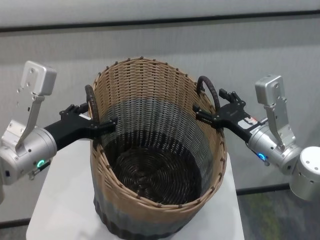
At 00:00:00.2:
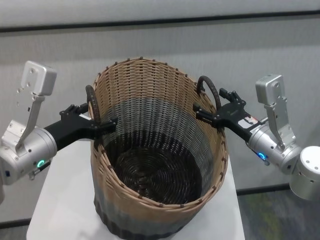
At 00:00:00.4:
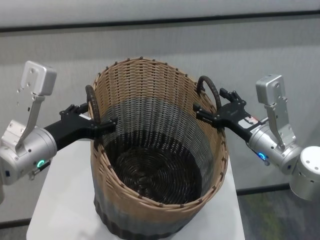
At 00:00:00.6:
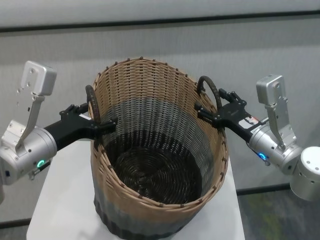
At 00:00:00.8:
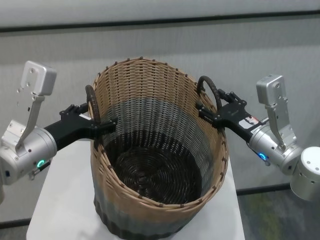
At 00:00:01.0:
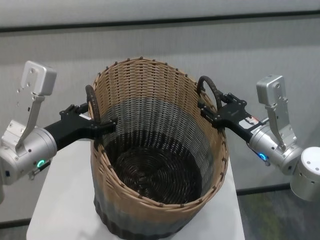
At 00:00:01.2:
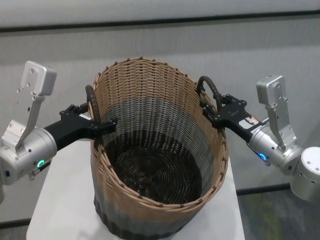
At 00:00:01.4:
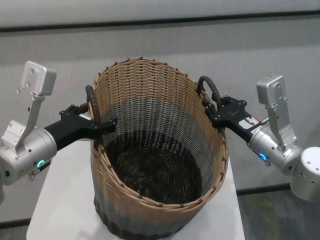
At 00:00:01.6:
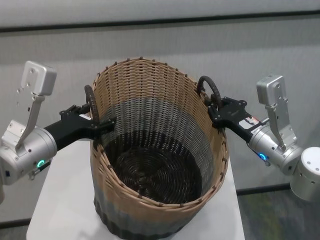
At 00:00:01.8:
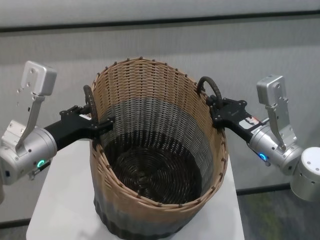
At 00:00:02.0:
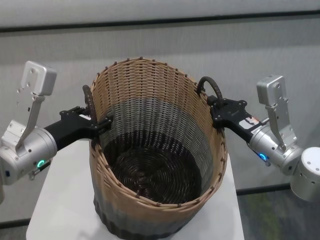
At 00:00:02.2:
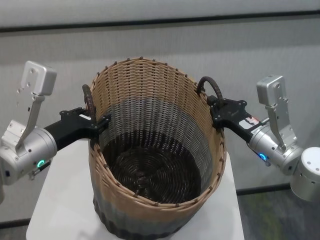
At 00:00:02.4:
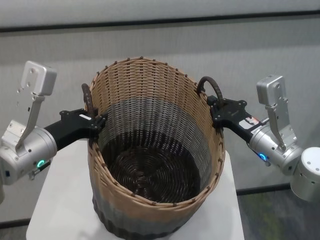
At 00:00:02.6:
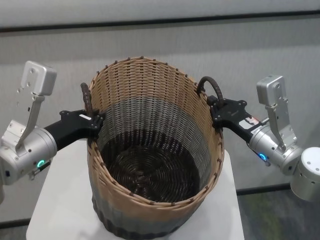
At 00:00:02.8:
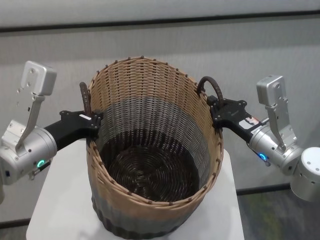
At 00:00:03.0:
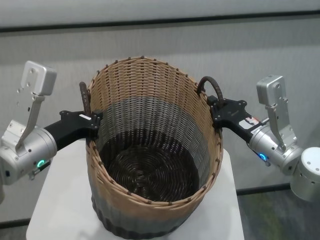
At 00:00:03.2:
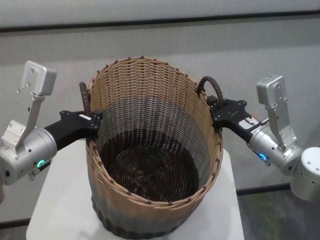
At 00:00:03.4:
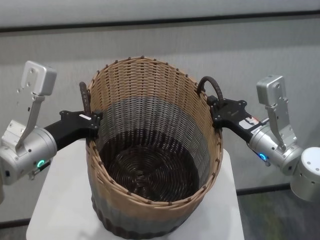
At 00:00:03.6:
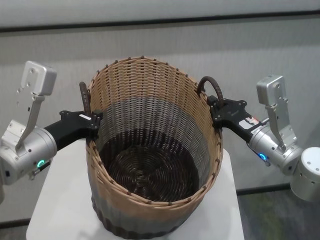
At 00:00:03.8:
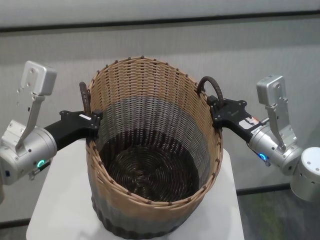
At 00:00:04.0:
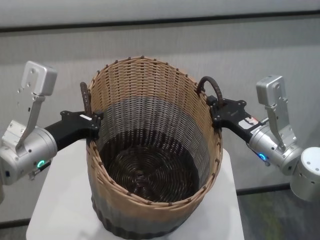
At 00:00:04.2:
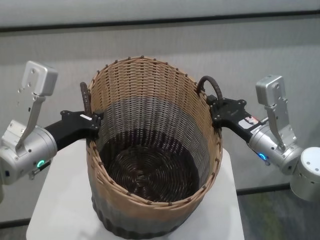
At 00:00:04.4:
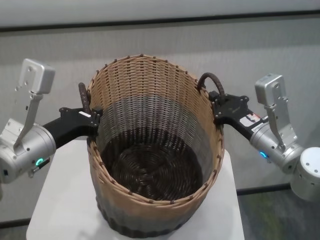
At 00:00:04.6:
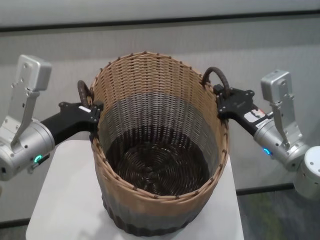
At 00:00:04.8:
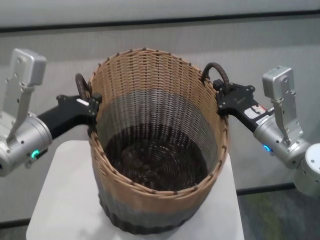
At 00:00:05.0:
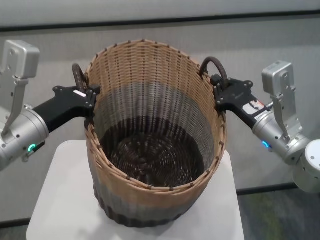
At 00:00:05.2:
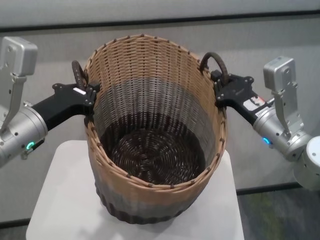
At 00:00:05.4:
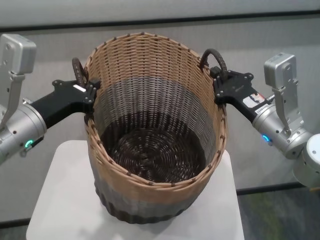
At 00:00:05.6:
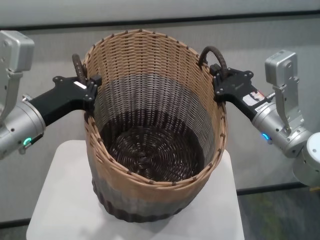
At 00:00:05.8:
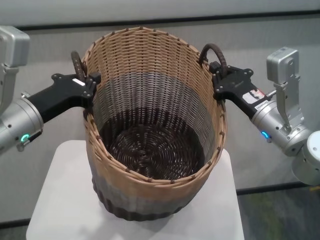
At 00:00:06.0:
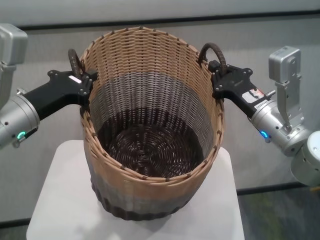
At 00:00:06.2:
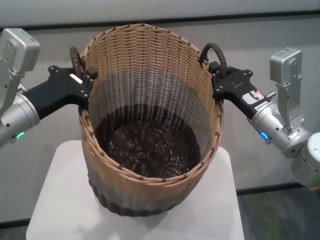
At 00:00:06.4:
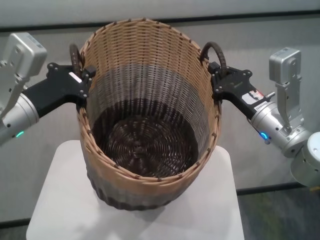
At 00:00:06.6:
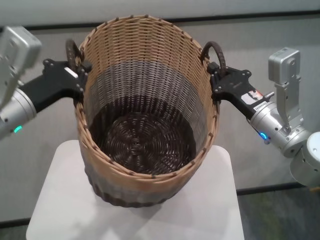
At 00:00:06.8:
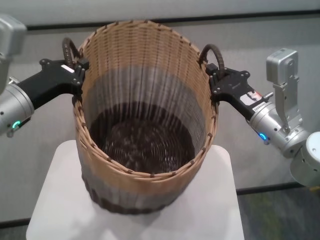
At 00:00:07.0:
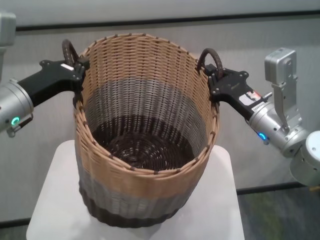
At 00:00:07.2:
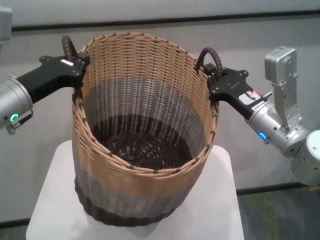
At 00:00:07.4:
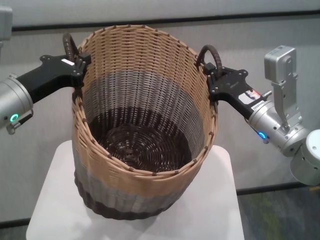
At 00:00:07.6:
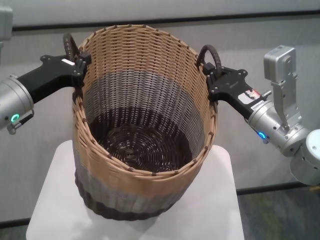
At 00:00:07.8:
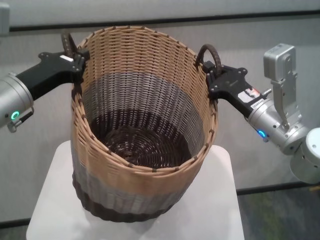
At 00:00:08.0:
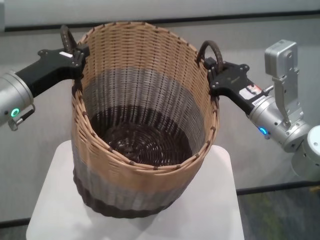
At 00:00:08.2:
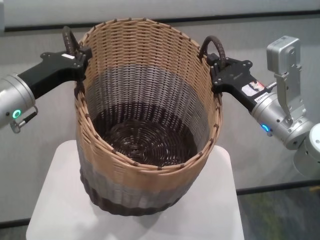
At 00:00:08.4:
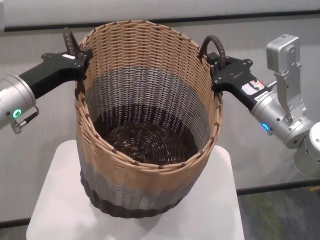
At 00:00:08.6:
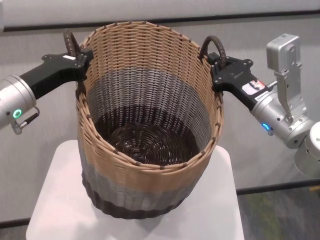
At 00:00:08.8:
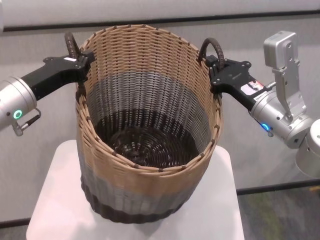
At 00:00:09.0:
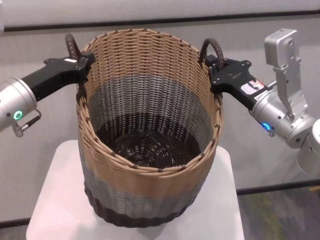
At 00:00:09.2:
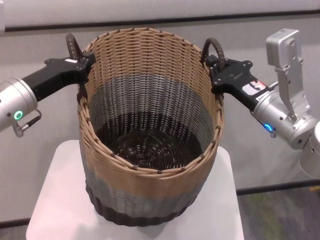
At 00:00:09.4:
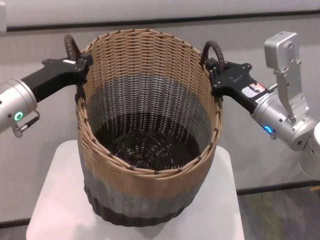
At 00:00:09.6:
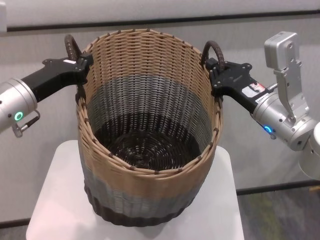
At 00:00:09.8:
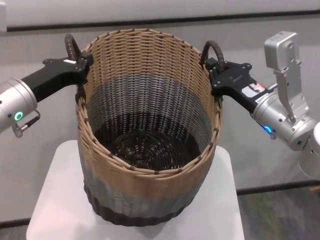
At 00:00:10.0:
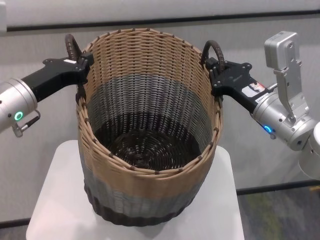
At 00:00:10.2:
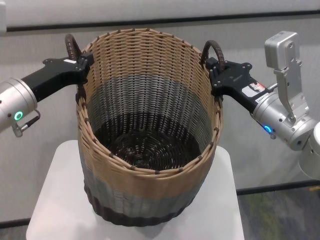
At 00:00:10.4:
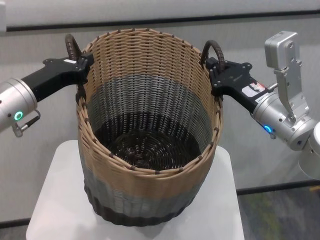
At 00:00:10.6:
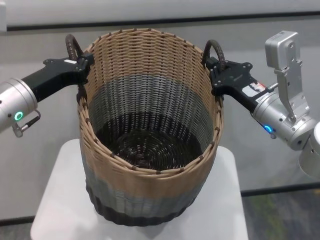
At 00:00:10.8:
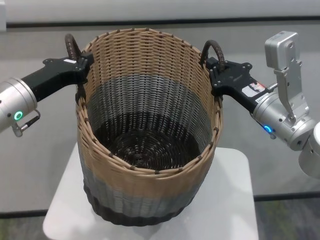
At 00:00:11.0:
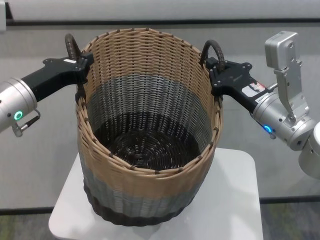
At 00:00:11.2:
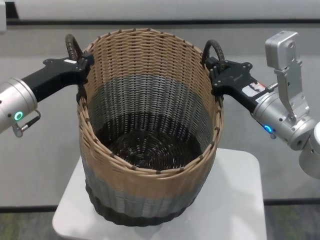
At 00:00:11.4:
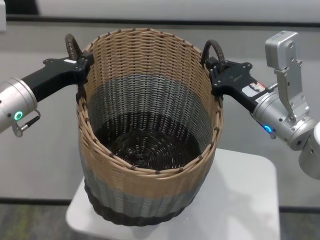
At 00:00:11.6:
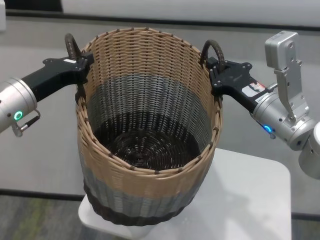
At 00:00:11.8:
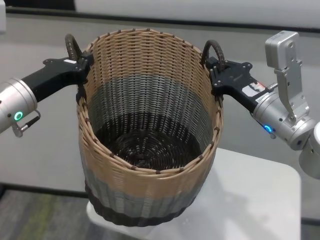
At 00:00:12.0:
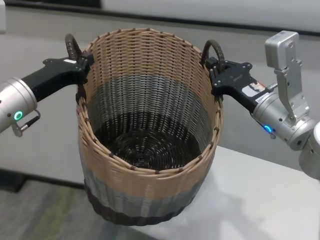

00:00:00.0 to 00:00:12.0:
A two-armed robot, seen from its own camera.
Task of the whole recording: carry the clothes basket in coordination with both hands.
Step, 00:00:00.0 to 00:00:04.0: Grasp the basket with both grippers.

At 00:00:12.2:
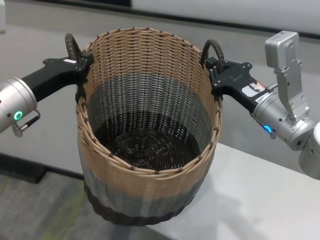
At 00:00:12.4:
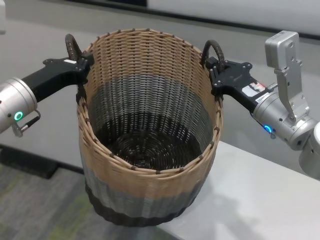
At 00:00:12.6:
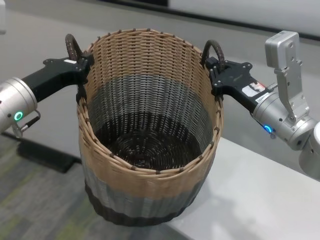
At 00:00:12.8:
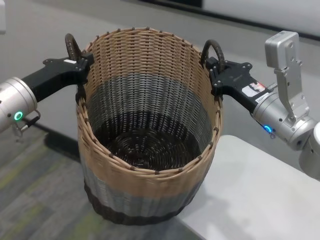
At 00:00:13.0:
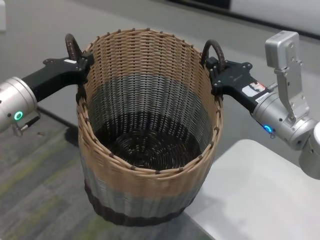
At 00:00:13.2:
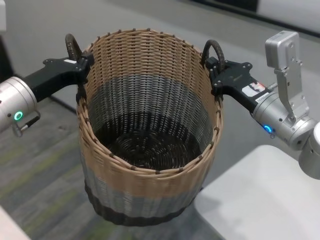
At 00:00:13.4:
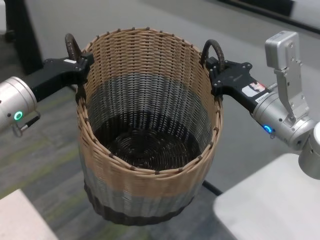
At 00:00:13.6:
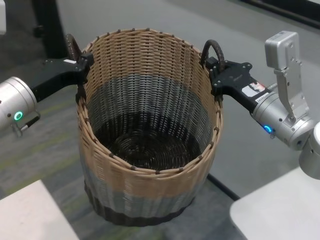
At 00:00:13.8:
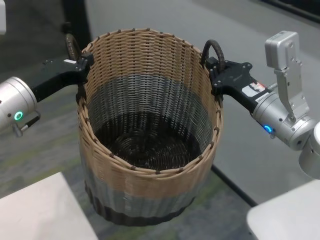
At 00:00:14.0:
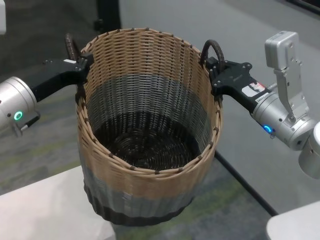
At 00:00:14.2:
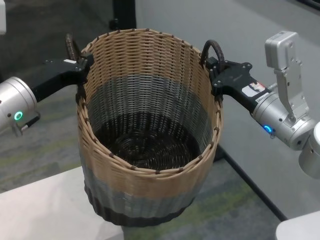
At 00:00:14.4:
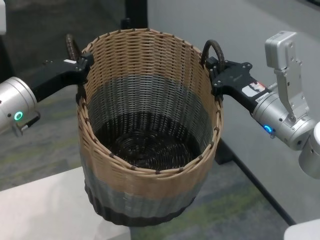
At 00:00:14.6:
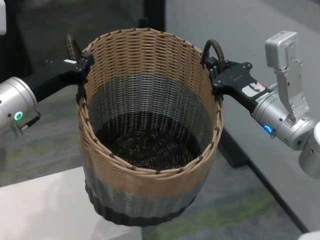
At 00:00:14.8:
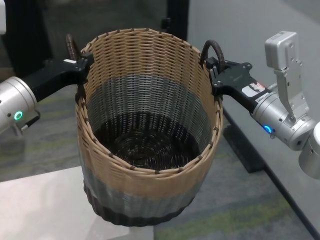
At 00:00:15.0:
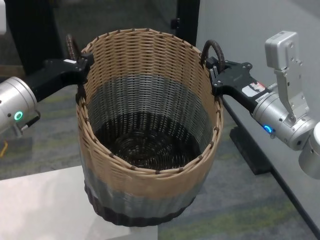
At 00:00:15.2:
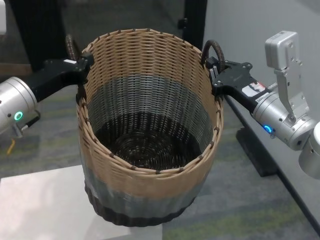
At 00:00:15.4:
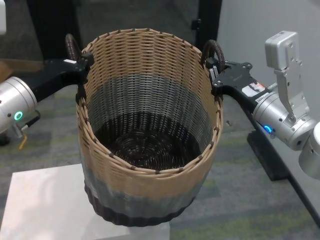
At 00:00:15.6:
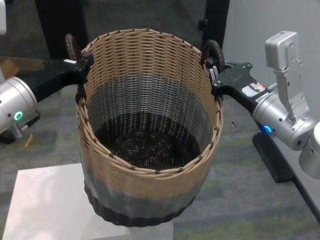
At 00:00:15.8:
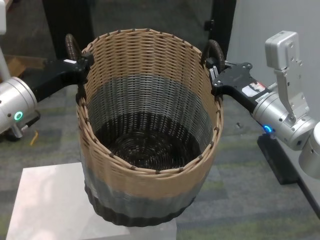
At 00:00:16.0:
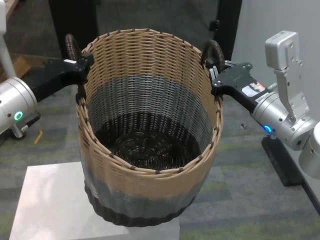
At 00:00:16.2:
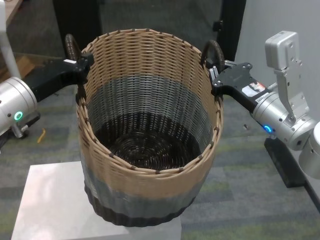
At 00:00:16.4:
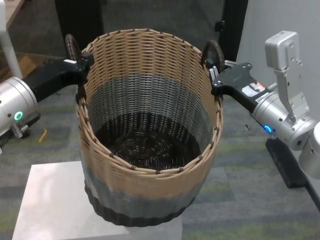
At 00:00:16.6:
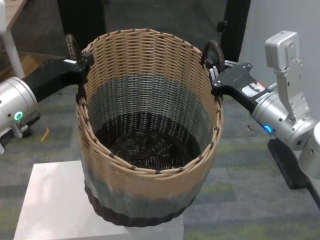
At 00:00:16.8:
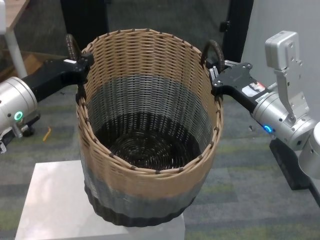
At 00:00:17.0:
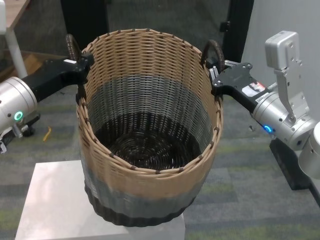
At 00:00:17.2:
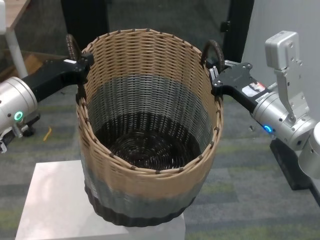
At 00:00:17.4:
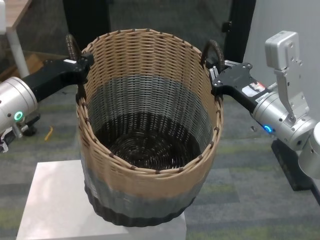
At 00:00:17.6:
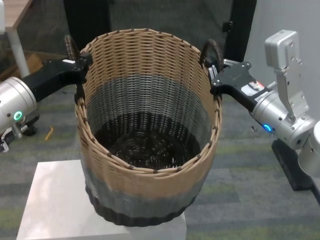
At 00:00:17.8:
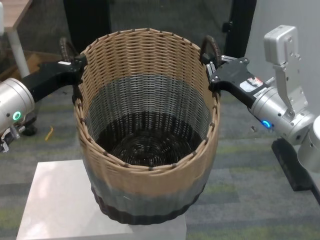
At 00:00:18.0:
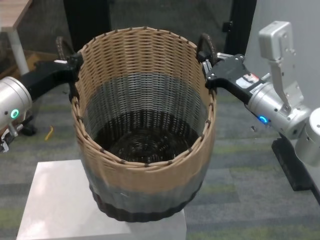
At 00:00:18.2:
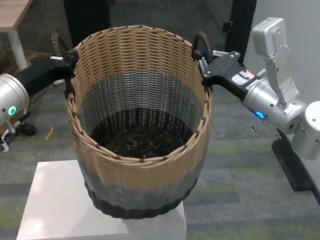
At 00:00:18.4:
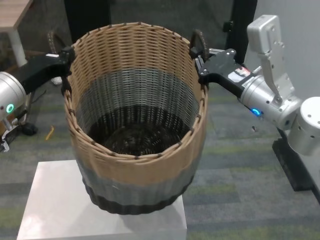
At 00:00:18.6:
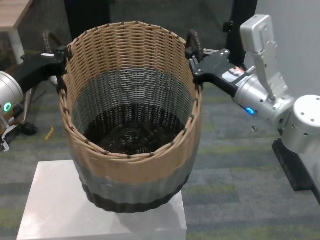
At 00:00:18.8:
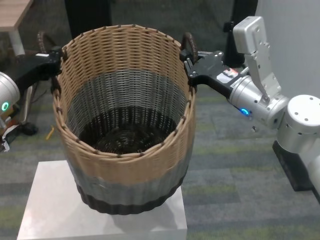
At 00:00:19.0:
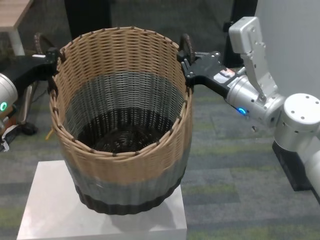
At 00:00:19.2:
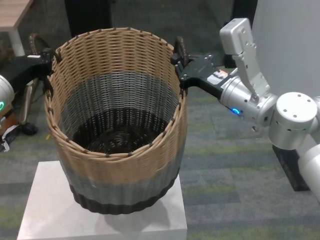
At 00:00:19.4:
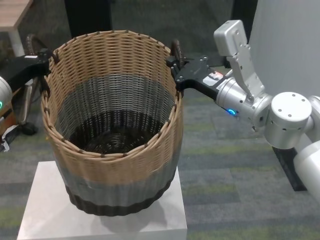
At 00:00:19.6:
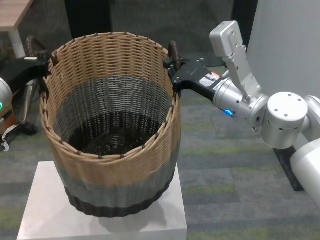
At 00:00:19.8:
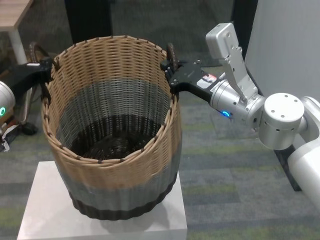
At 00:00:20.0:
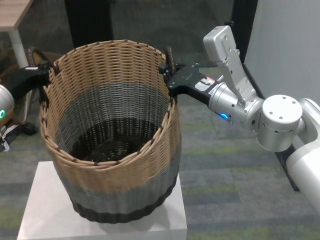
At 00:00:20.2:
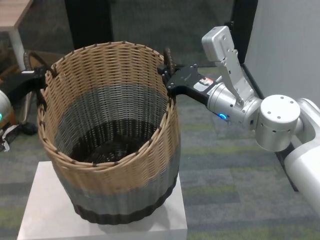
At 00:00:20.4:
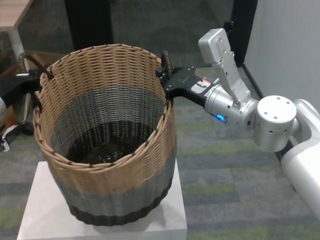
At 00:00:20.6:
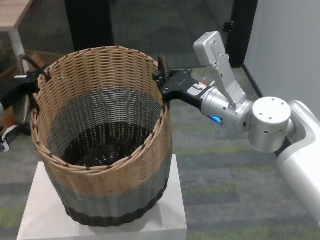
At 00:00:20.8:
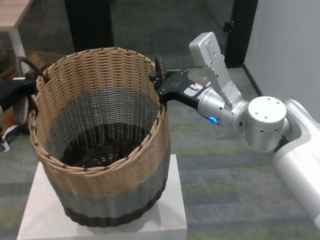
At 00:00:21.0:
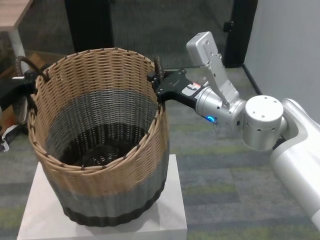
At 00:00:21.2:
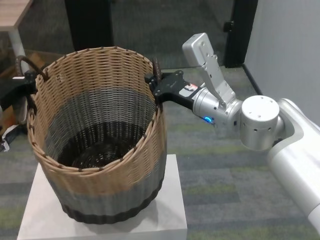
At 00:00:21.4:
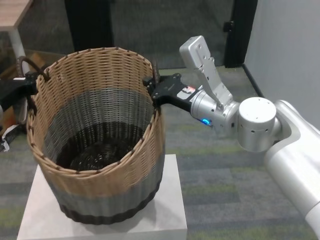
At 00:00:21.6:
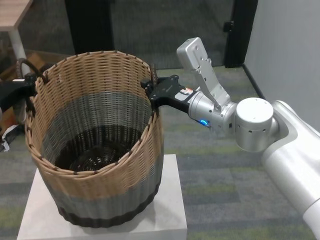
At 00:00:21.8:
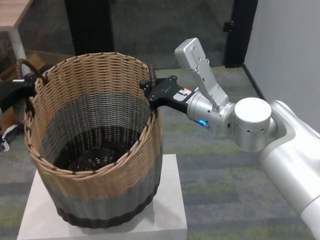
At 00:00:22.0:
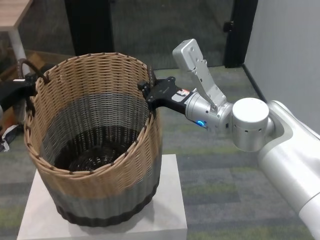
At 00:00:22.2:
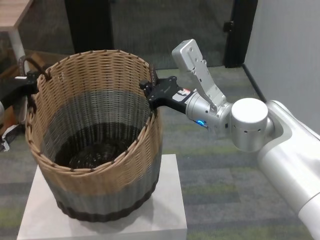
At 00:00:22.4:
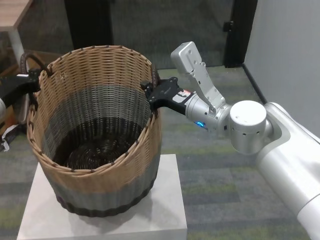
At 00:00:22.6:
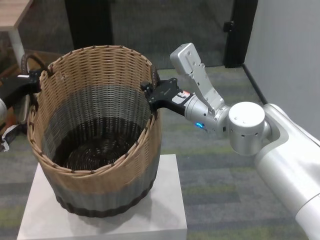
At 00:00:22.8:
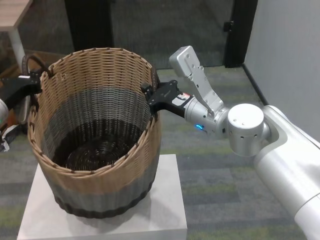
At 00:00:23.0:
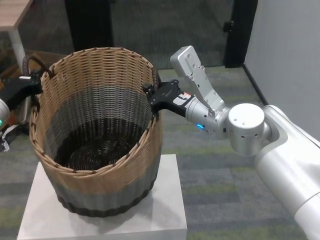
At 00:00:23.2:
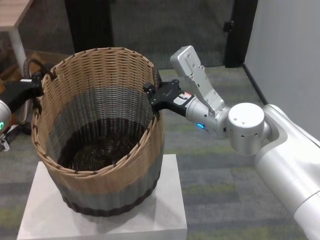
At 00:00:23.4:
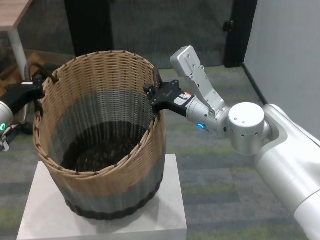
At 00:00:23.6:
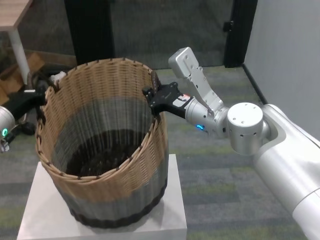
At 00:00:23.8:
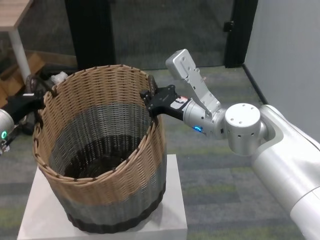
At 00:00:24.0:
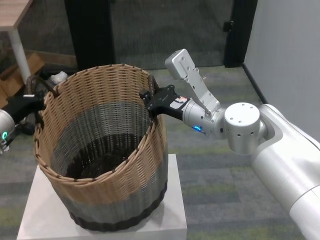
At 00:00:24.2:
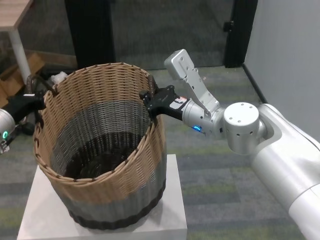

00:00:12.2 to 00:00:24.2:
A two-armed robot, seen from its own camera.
Task of the whole recording: carry the clothes basket in coordination with both hands.
Step, 00:00:12.2 to 00:00:17.4: Move the basket above the other table.
